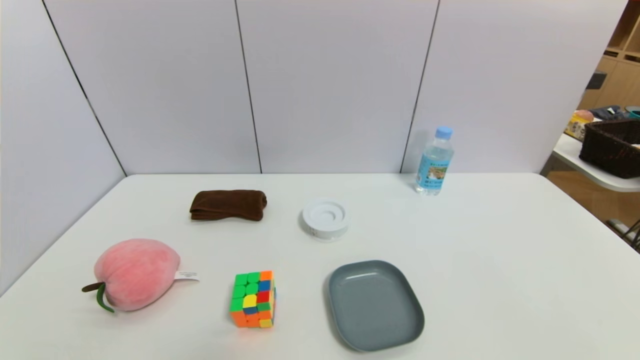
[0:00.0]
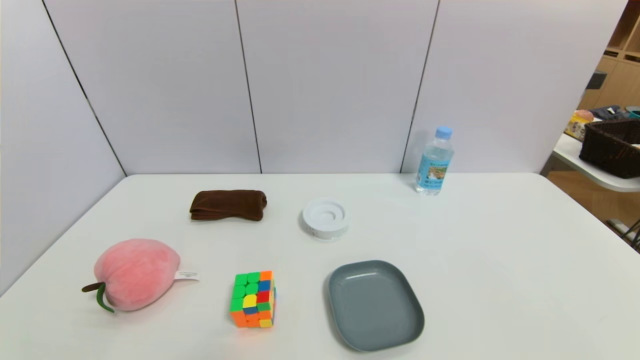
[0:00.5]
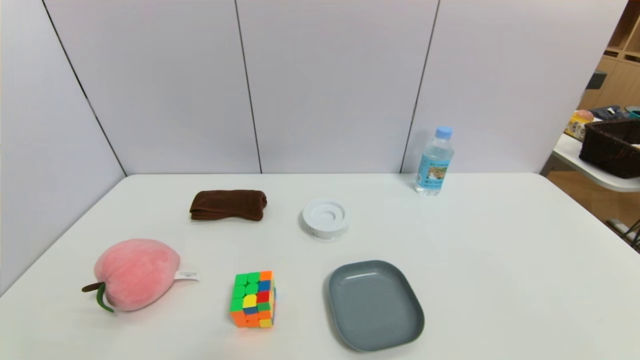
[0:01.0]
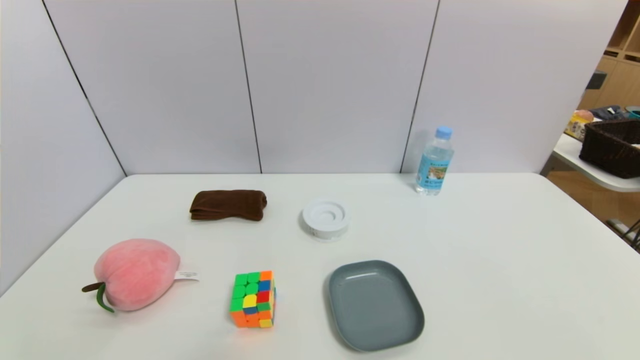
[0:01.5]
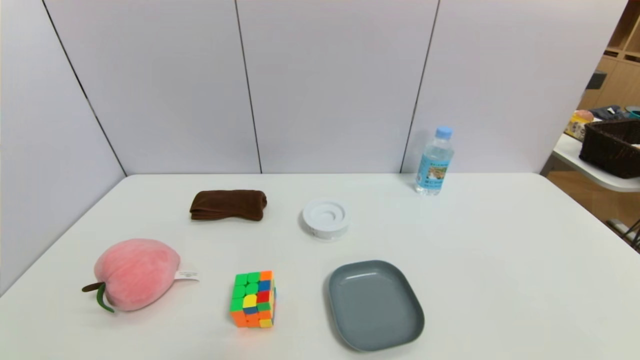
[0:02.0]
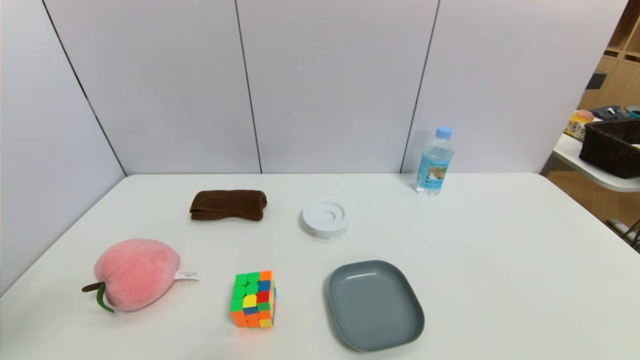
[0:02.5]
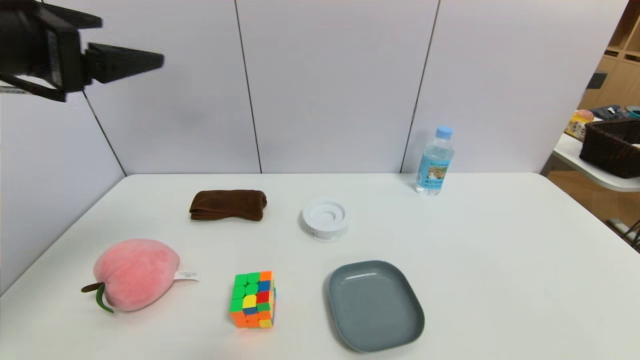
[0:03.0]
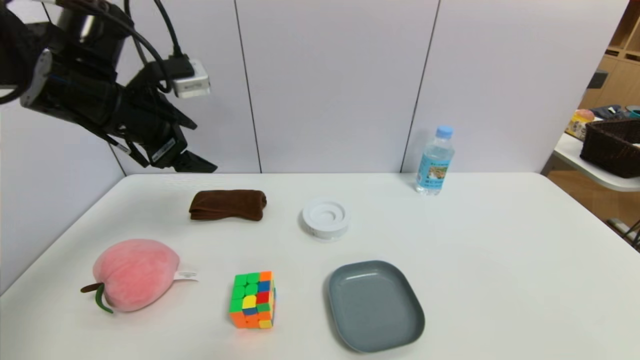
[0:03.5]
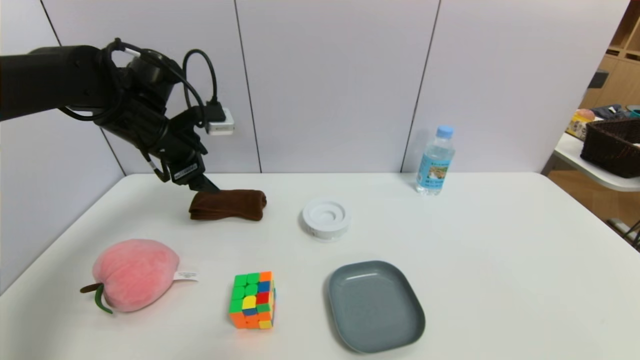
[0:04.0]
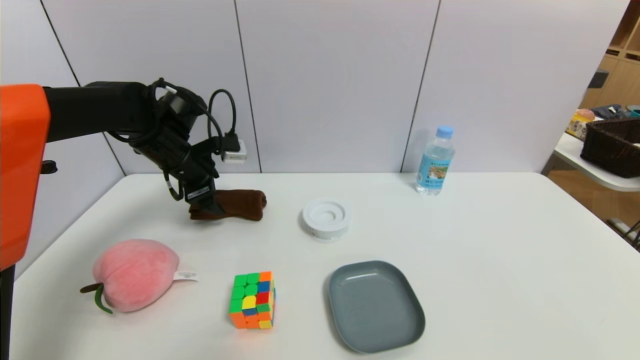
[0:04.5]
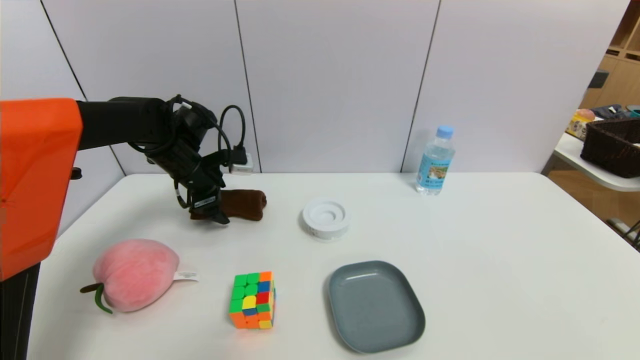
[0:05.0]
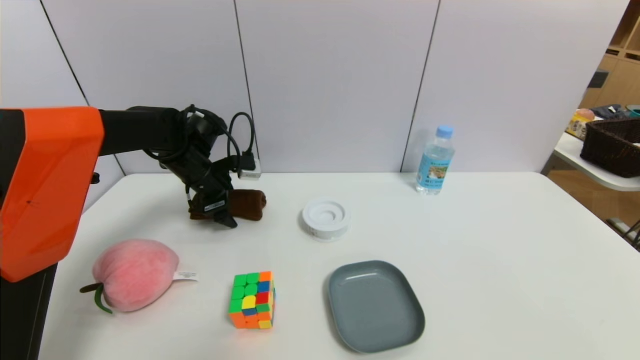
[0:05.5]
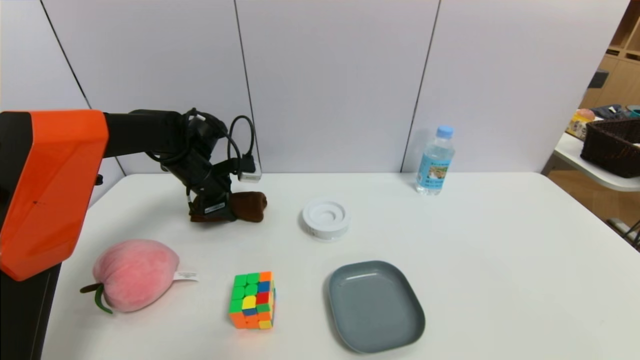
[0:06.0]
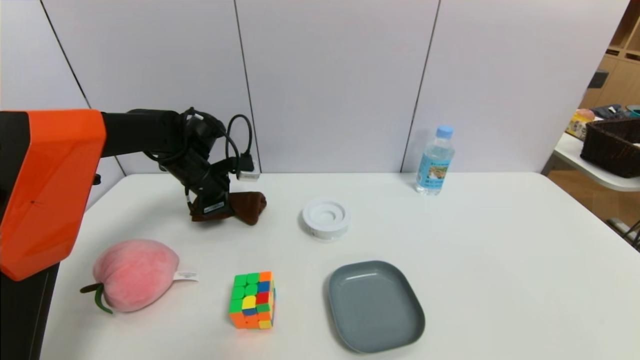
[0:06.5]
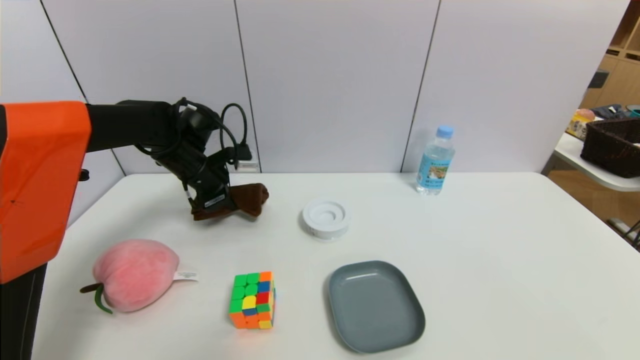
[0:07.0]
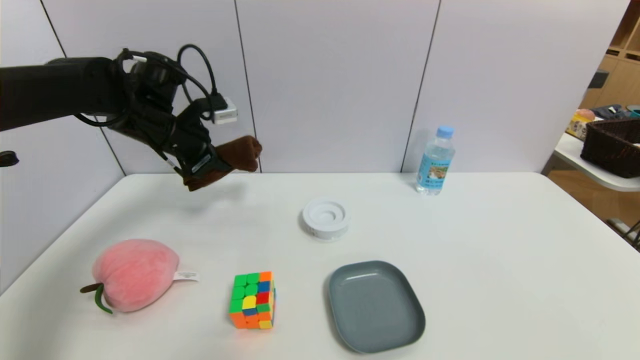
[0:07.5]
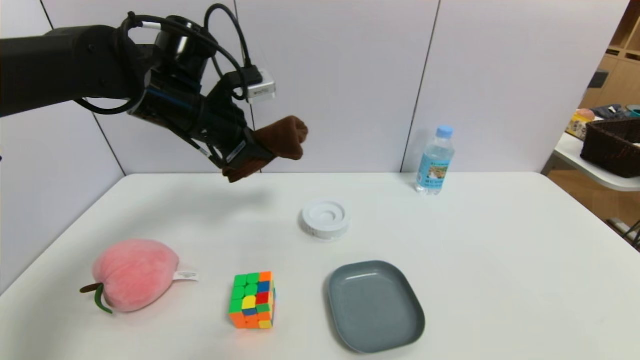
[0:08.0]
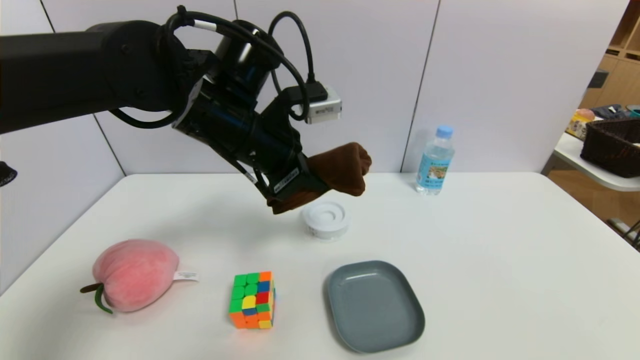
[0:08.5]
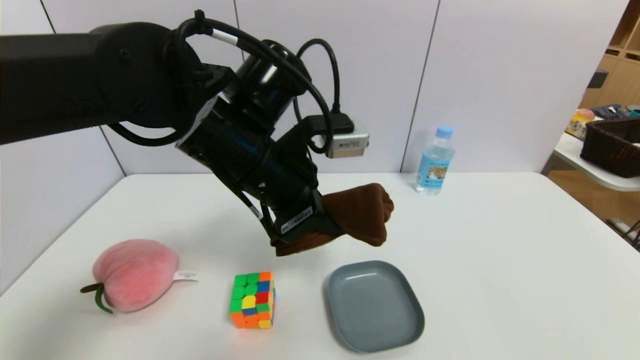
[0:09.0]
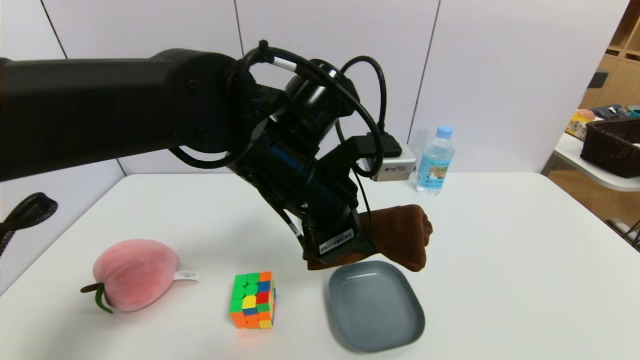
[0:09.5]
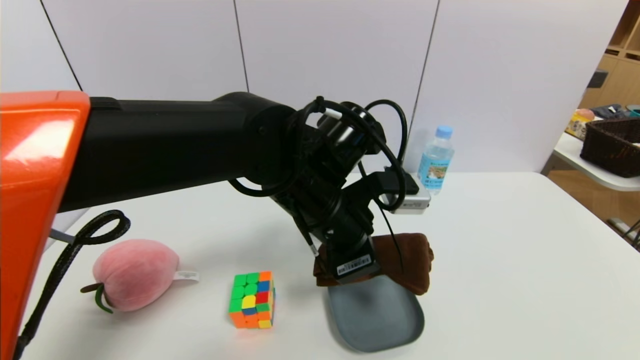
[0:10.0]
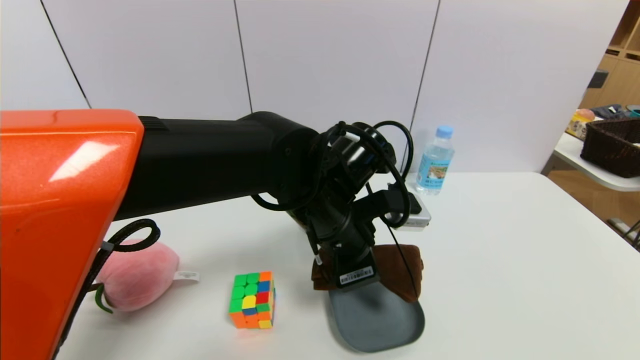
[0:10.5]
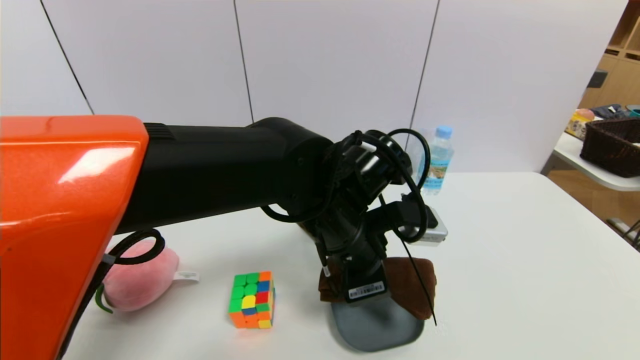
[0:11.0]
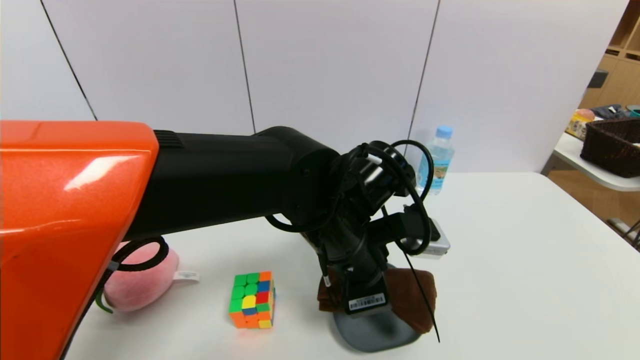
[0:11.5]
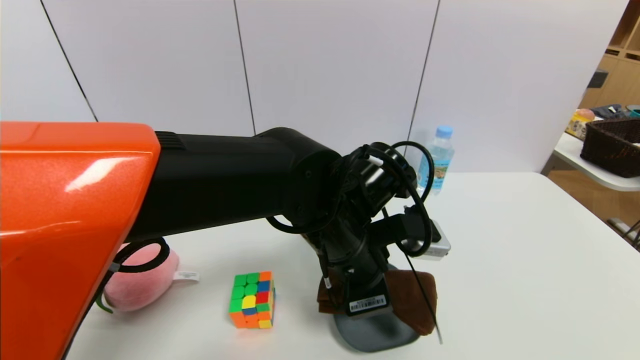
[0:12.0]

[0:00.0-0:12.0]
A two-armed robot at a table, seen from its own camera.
Task of the whole recording: use a gripper to pick the target object and place on the dish.
Step, 0:00.0 to 0:06.5: Grasp the brown towel with the left gripper.
0:02.0 to 0:04.0: The left gripper heads forward, covering about 40 cm.
0:04.0 to 0:06.0: The left gripper shifts roughly 10 cm downward and forward, and closes its fingers.
0:06.0 to 0:08.0: The left gripper is displaced upward and backward by some 15 cm, and closes its fingers.
0:08.0 to 0:10.0: The left gripper travels to the right, backward and downward by approximately 20 cm.

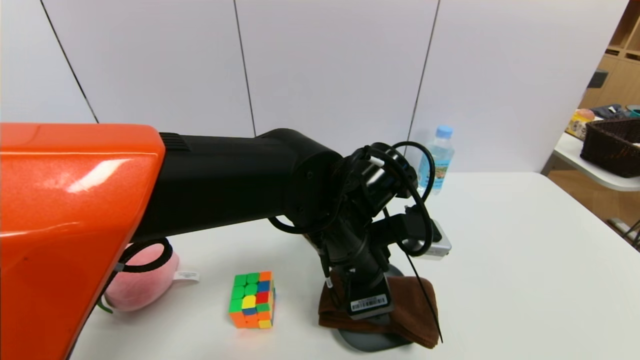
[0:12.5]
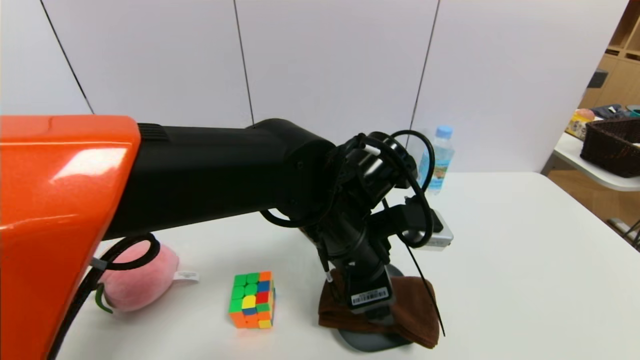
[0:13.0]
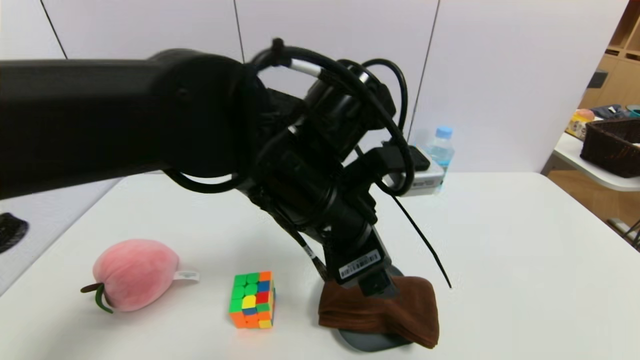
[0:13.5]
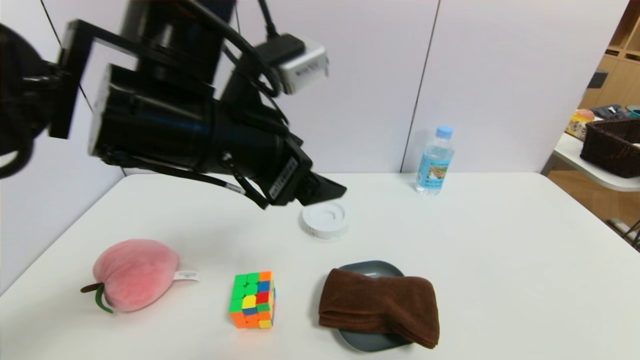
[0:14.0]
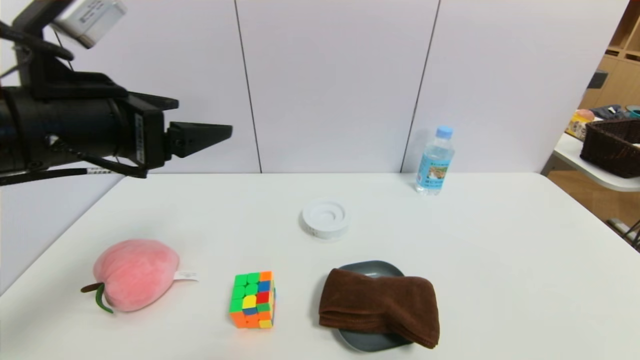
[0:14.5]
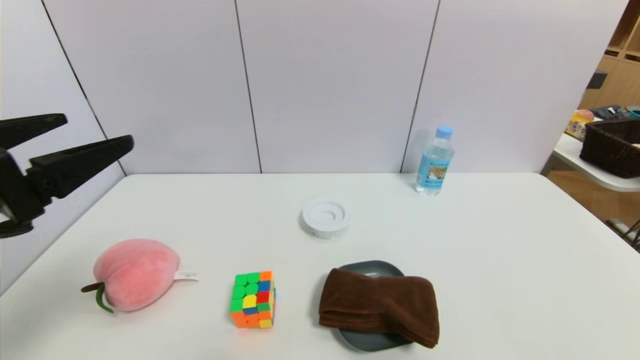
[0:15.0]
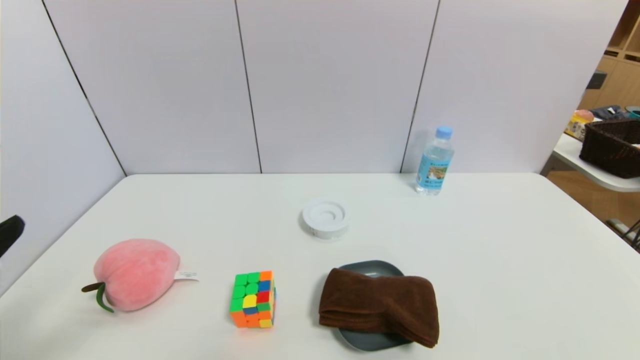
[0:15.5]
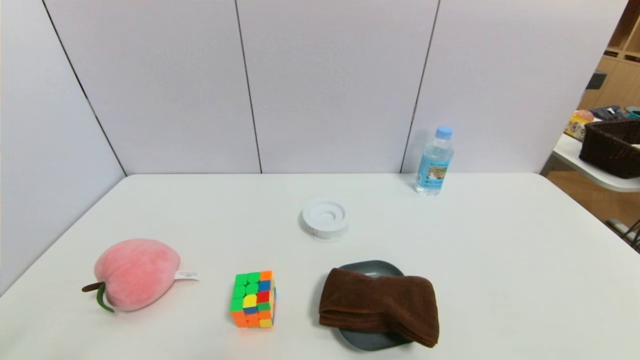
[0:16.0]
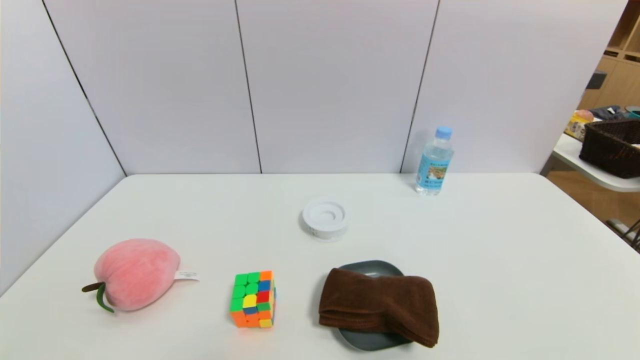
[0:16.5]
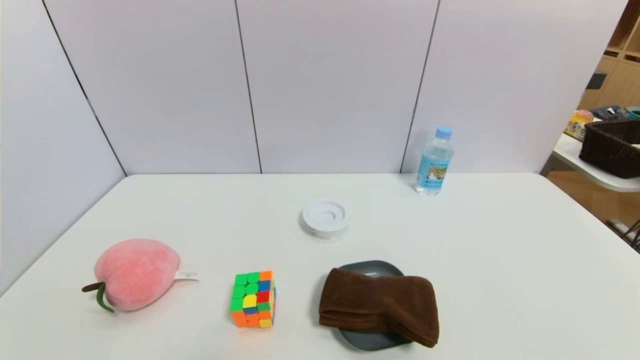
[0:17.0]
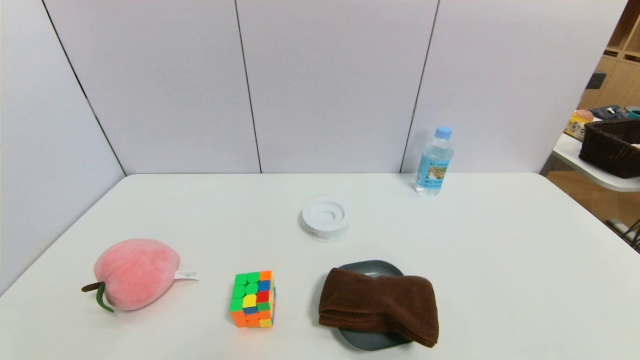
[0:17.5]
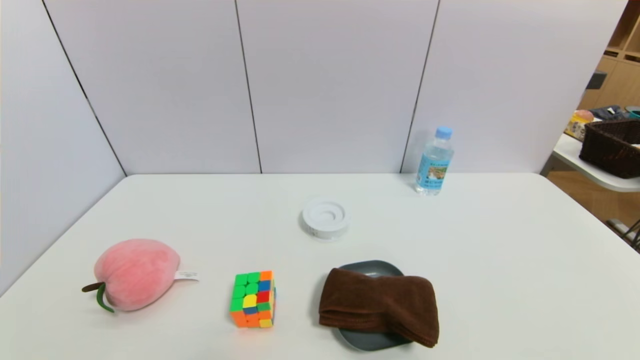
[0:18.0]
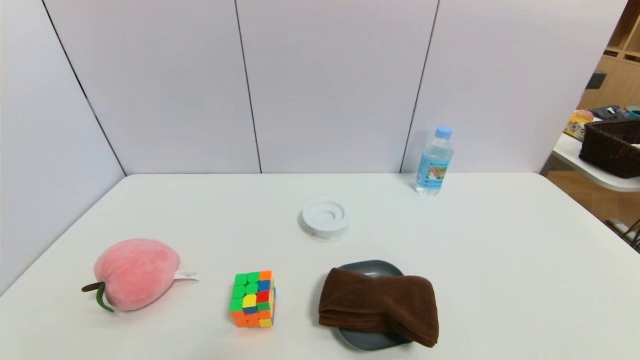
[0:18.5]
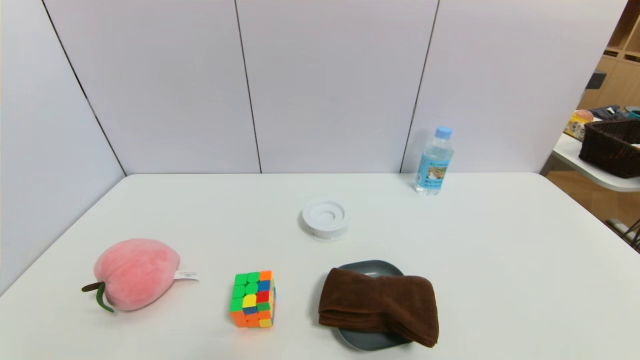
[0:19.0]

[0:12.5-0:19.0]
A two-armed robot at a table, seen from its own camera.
Task of the whole recording: use a gripper to pick the target object and place on the dish.
0:12.5 to 0:14.5: The left gripper goes some 25 cm to the left and upward.
0:14.5 to 0:17.0: The left gripper moves downward and backward, about 30 cm.
